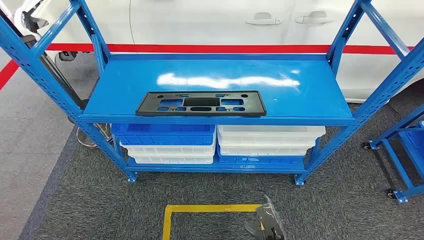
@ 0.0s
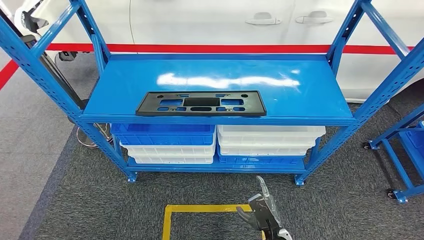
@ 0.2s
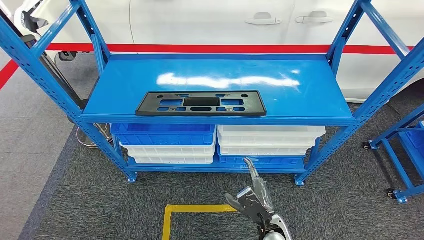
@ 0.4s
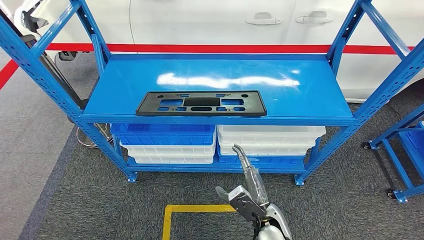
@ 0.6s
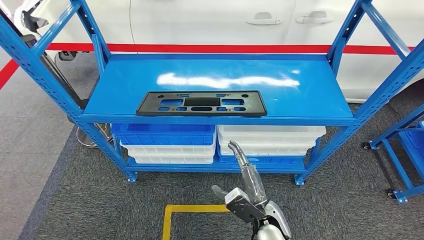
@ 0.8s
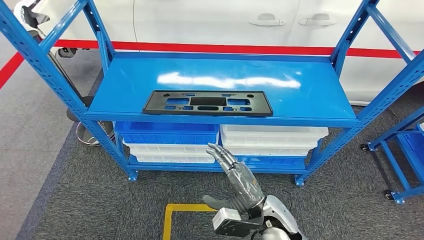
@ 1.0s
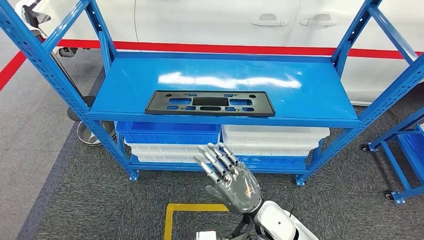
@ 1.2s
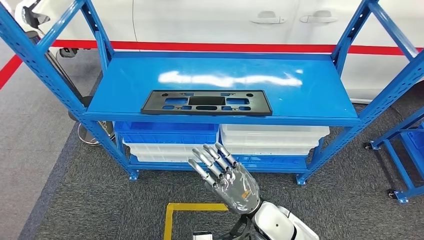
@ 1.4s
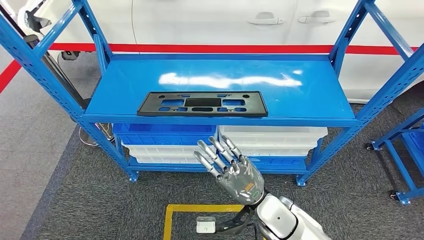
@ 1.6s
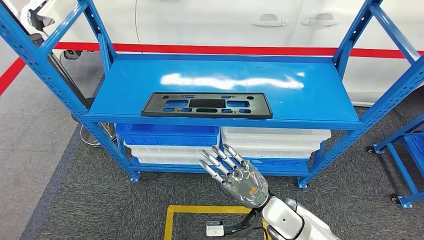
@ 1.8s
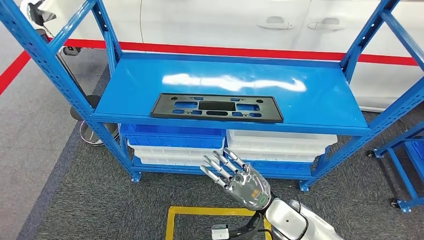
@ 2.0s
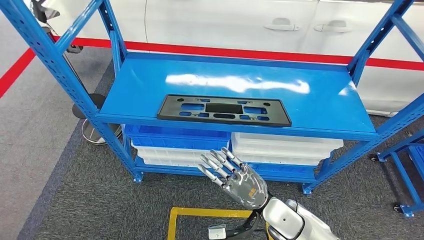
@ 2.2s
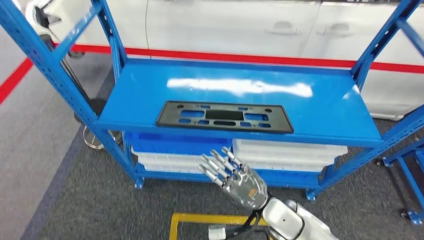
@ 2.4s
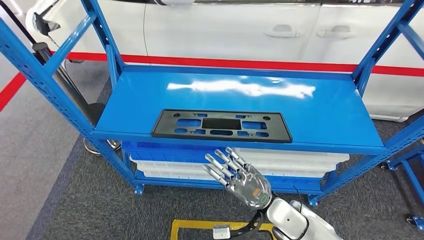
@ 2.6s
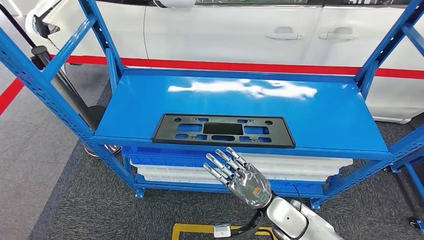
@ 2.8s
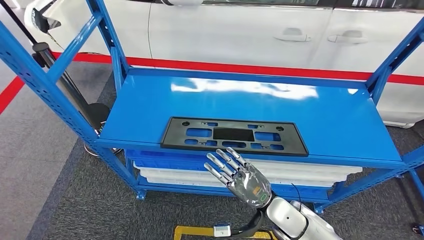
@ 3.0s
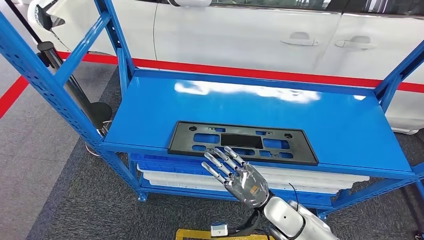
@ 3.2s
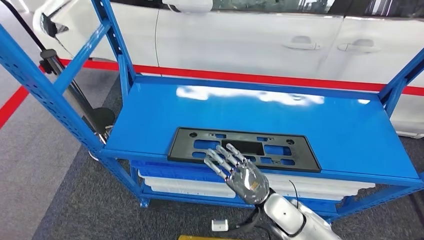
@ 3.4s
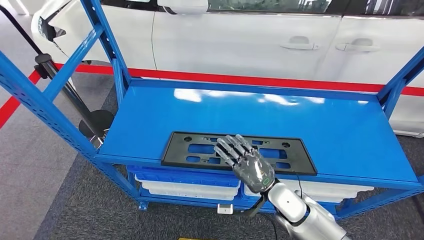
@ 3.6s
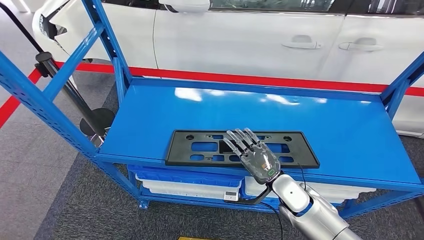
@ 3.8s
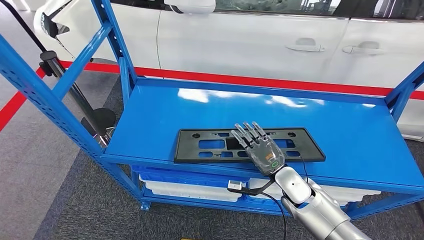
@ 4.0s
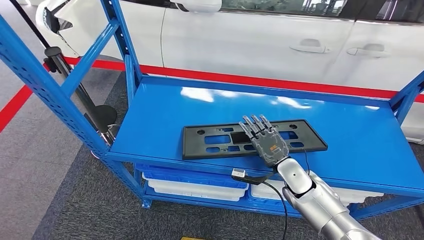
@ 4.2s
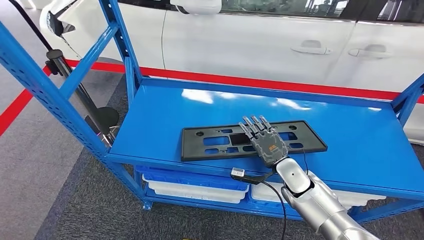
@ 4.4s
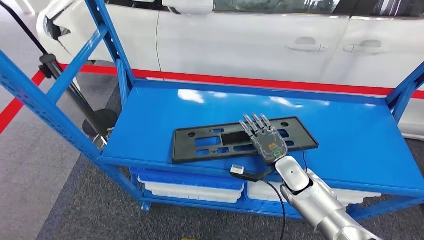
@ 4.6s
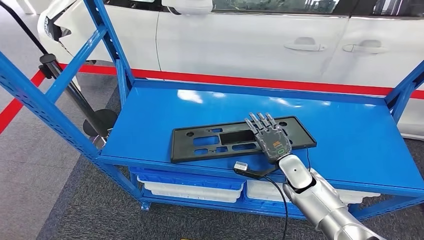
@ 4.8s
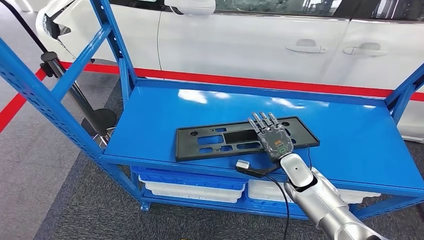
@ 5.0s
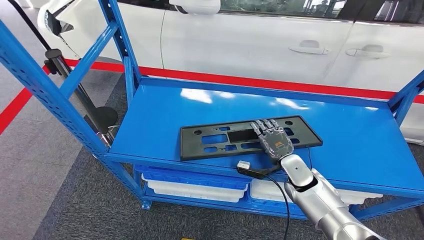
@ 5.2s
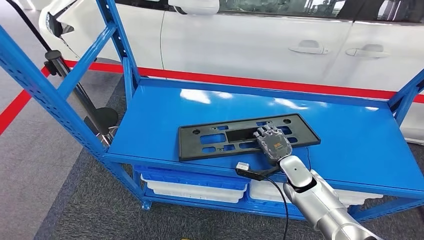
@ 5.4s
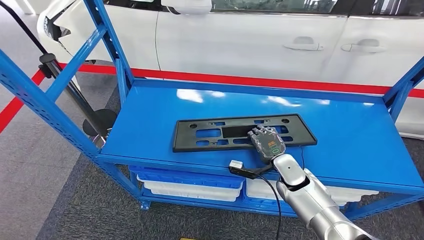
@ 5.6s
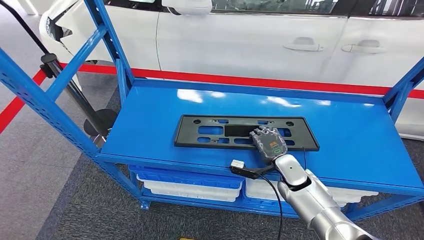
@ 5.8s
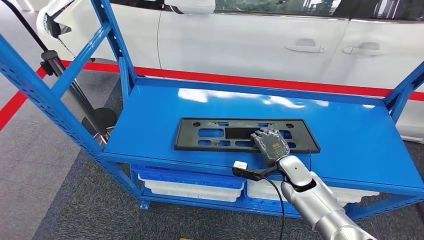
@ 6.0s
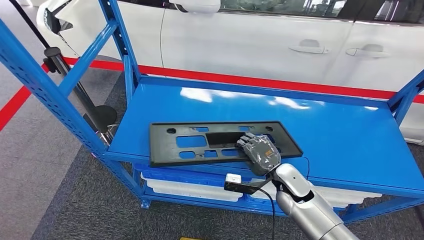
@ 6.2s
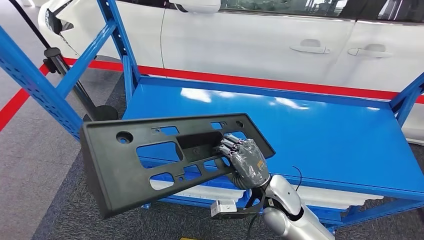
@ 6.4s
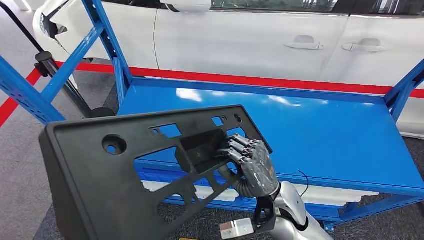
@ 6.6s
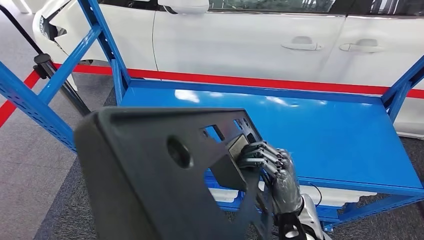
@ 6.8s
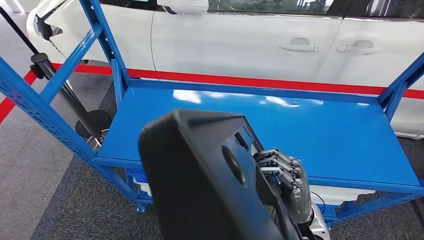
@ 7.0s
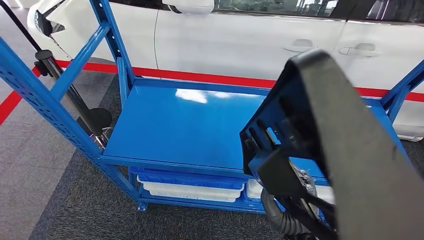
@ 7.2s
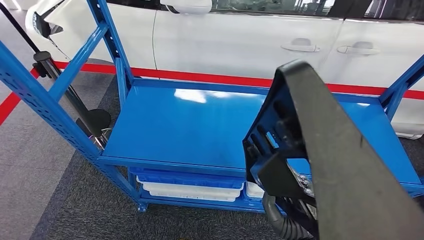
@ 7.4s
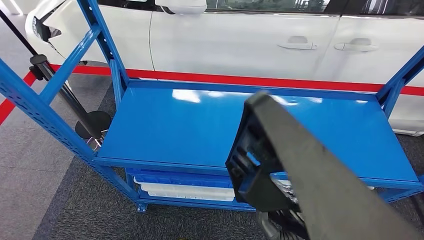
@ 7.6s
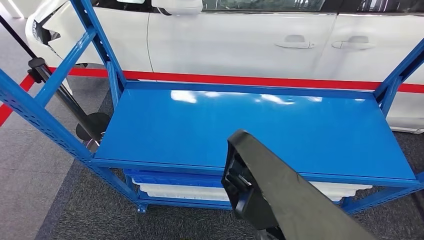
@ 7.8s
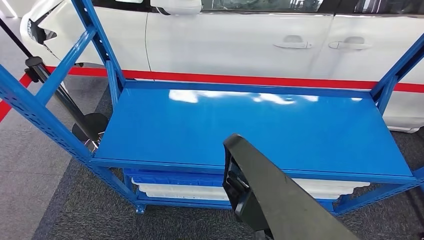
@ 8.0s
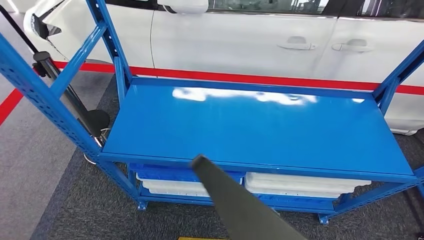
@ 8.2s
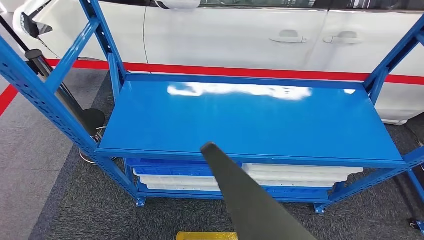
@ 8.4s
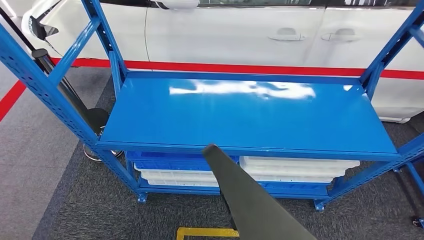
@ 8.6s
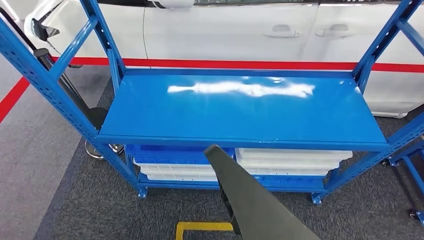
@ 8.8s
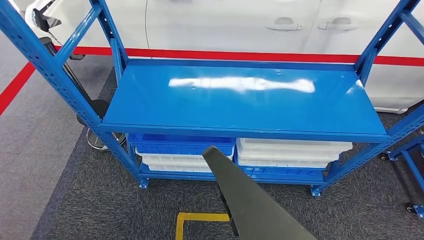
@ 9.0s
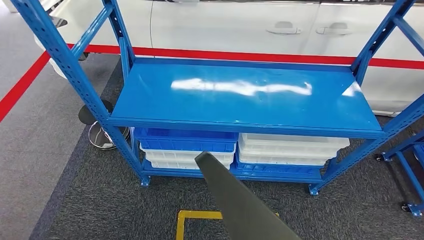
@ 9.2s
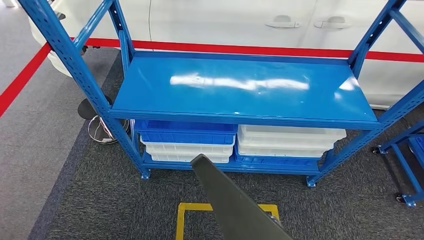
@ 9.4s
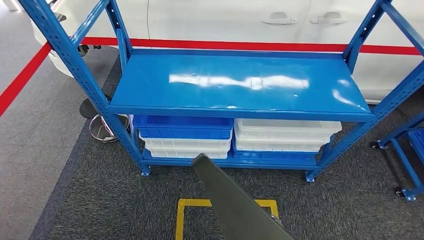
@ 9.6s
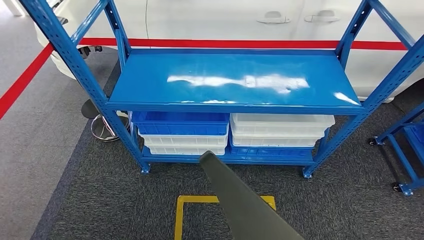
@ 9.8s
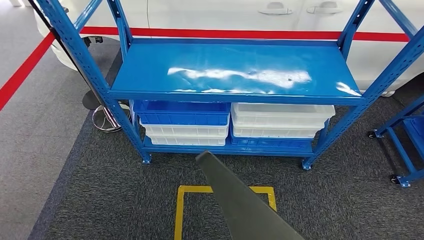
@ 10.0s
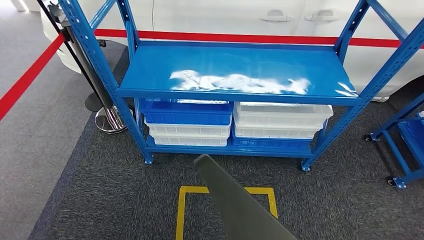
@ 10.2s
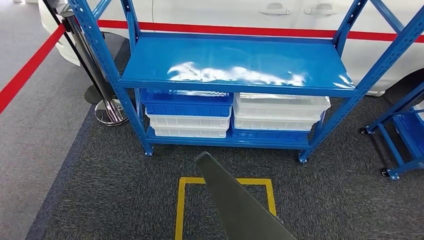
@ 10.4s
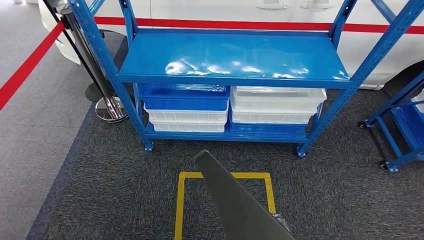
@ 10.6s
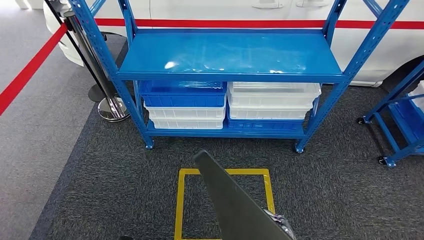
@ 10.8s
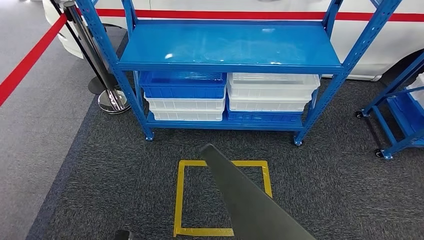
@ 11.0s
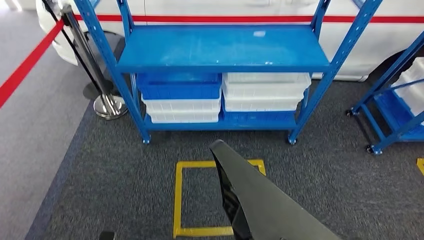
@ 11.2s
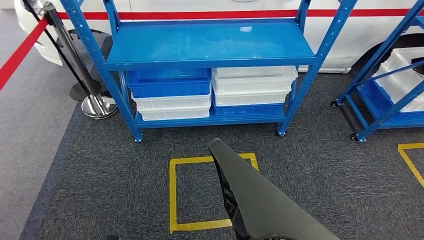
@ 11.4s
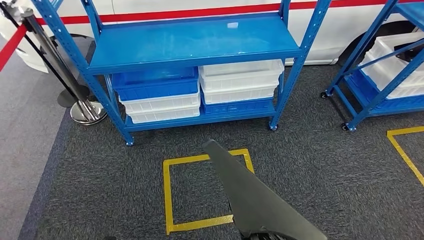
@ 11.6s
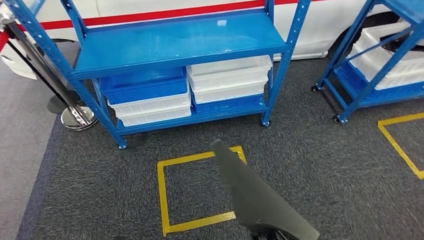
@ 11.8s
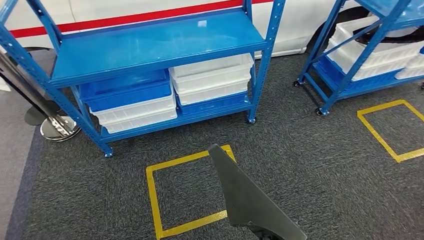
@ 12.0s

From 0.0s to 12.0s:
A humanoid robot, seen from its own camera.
Step, from 0.0s to 7.4s: Pick up the large material from the shelf.

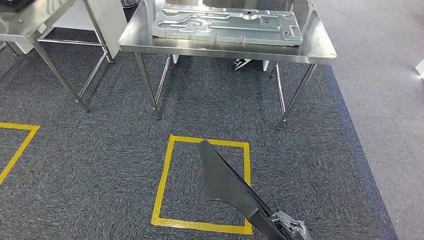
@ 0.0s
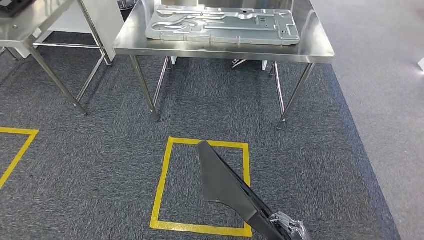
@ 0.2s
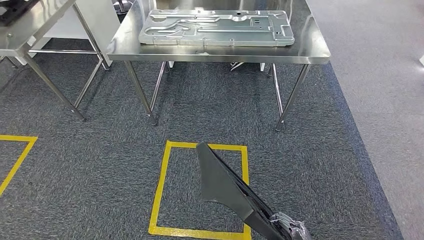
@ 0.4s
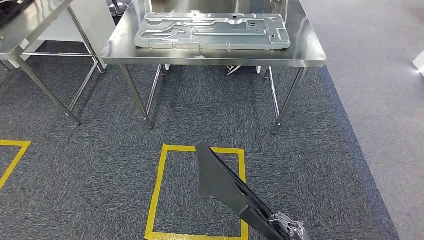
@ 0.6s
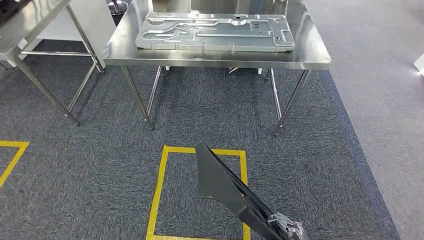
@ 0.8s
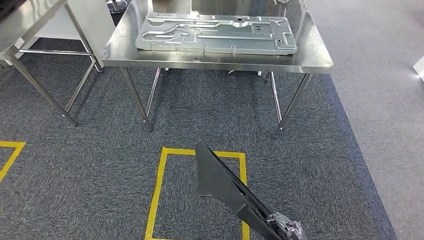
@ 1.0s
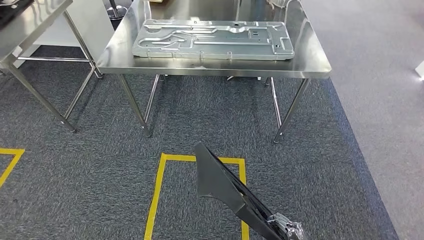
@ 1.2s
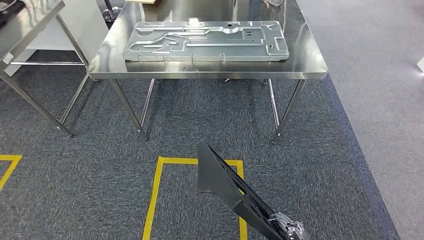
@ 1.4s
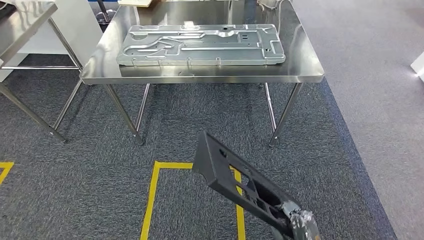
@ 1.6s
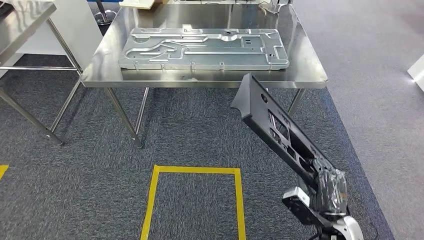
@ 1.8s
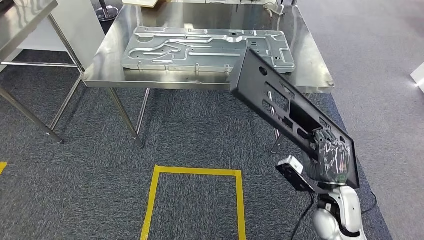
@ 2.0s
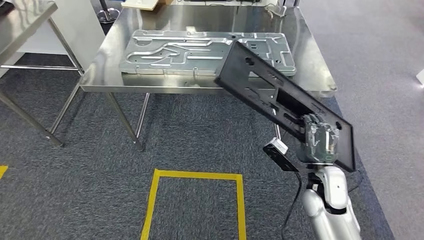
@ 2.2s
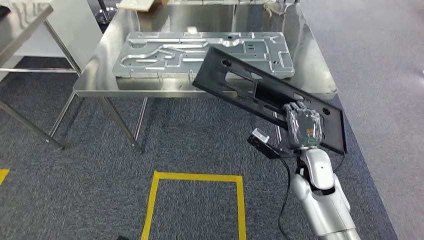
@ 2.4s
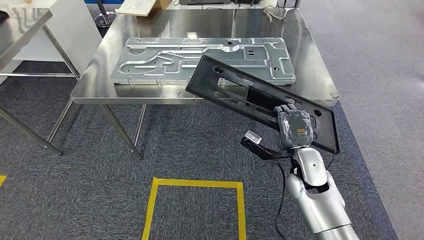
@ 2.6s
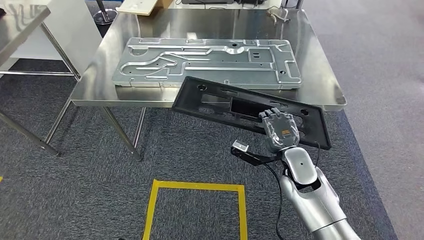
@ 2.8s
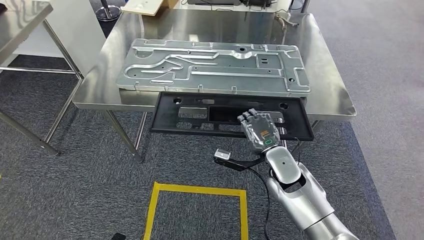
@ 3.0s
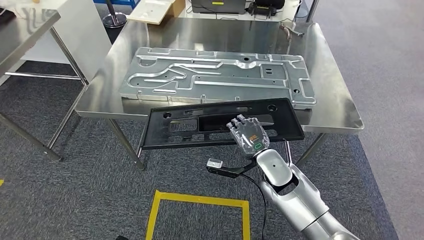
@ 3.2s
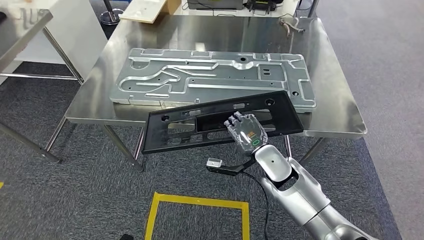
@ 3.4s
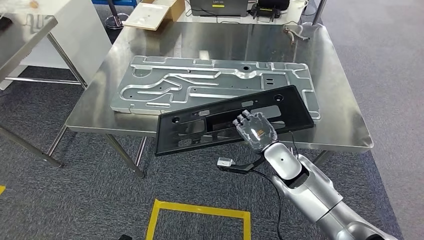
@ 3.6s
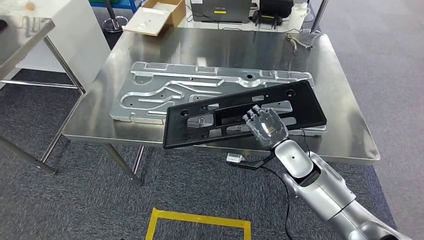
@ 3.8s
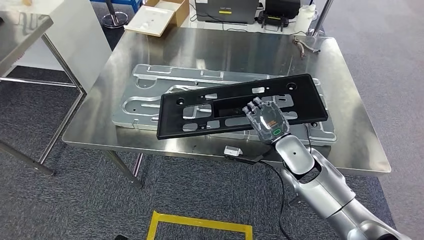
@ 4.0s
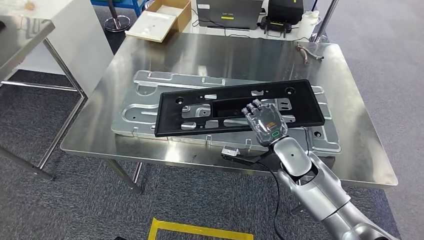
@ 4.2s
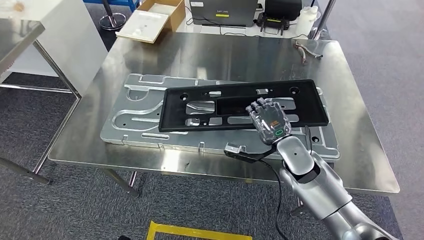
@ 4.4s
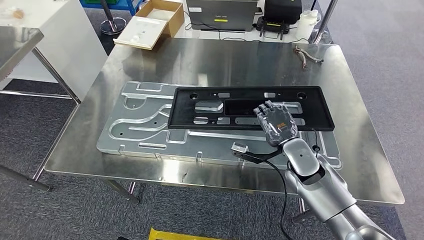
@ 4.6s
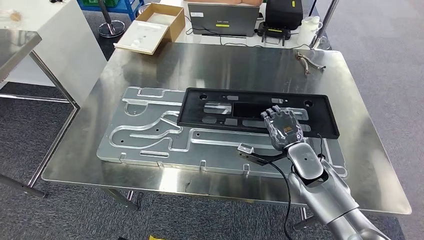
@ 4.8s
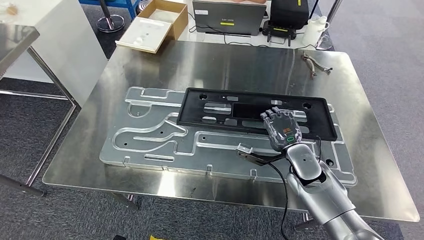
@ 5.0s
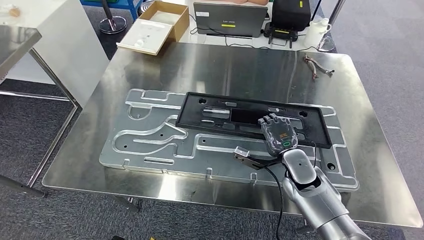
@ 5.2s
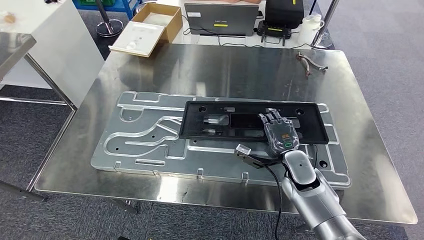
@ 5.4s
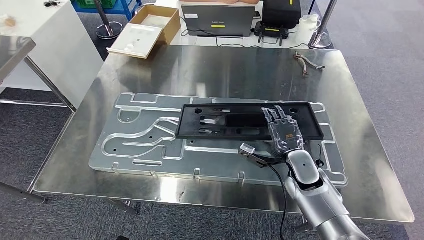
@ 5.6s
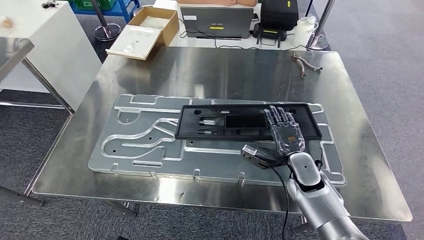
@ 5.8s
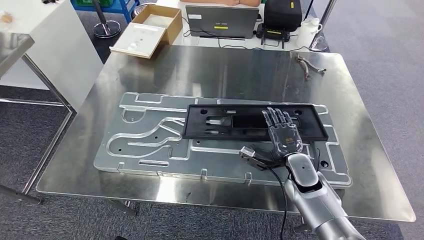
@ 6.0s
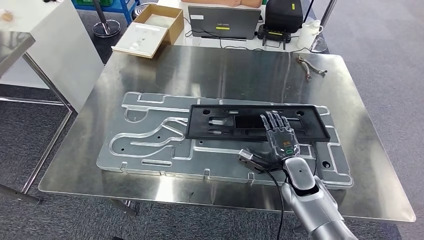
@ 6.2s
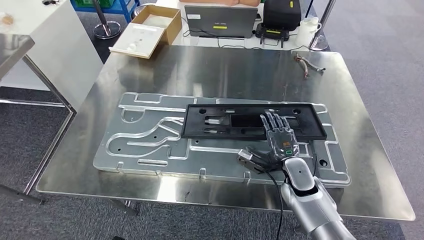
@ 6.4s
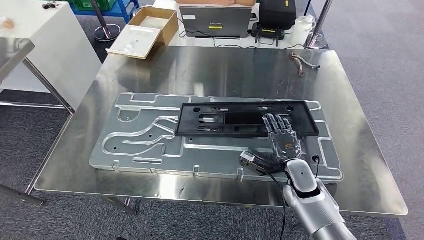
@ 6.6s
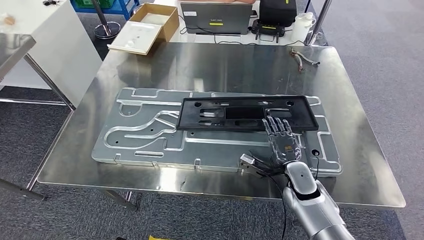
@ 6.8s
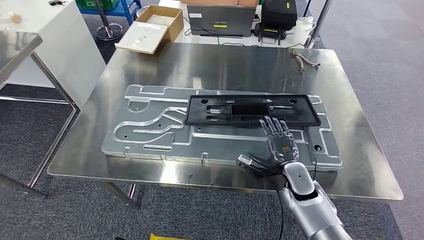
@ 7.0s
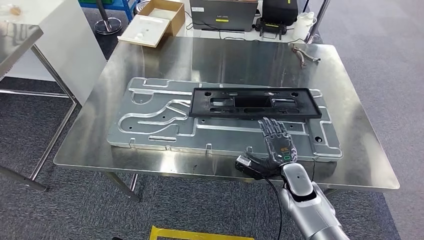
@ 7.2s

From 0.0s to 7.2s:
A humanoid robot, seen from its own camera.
Step, from 0.0s to 2.2s: Move the large material to the workbench.
